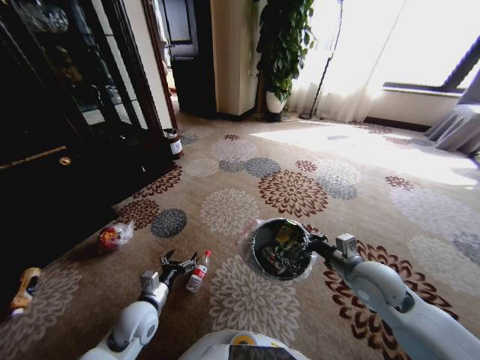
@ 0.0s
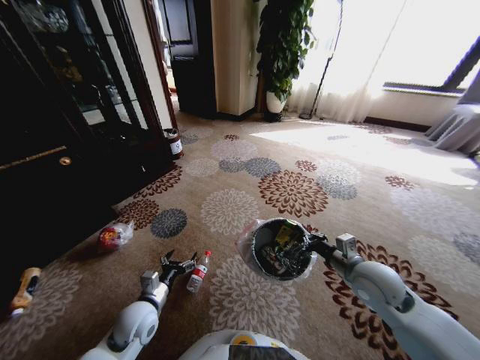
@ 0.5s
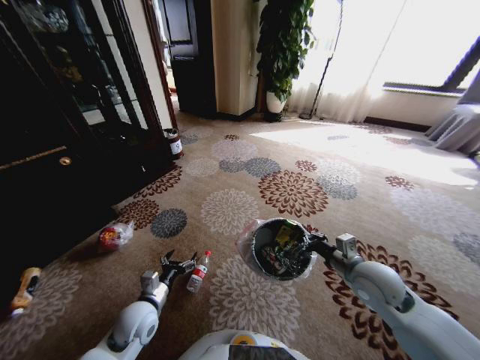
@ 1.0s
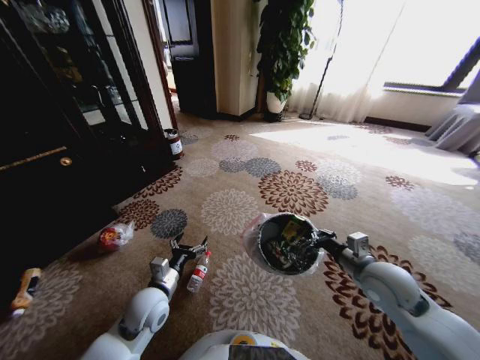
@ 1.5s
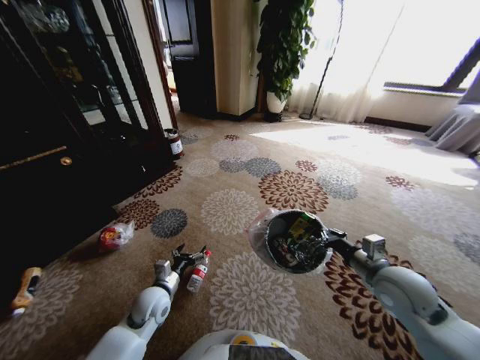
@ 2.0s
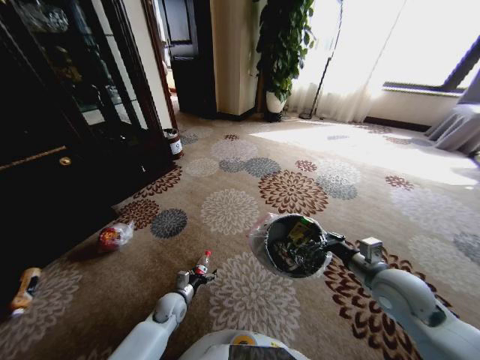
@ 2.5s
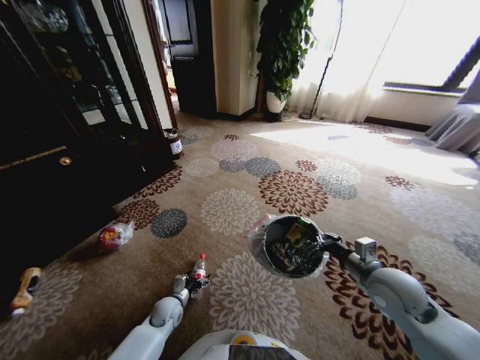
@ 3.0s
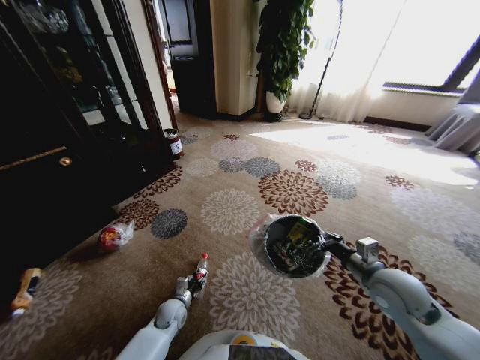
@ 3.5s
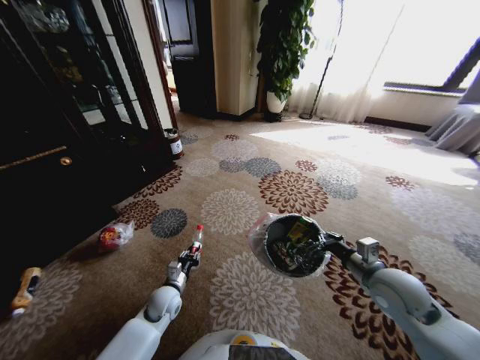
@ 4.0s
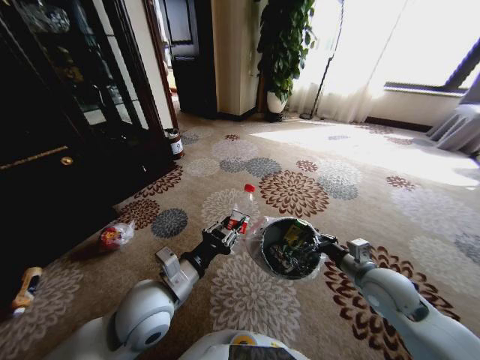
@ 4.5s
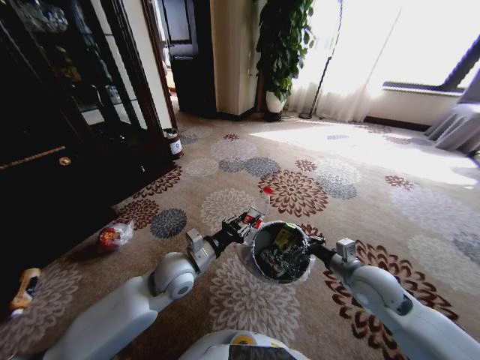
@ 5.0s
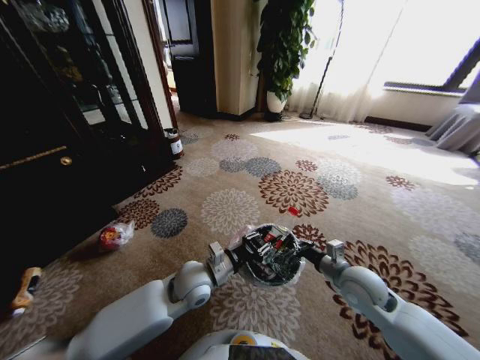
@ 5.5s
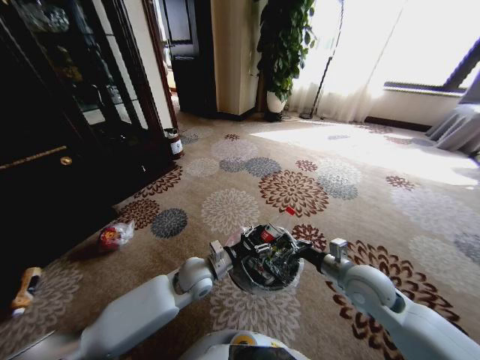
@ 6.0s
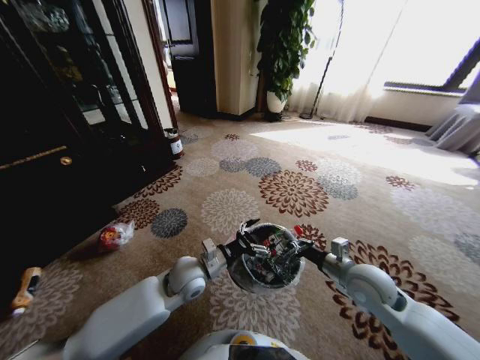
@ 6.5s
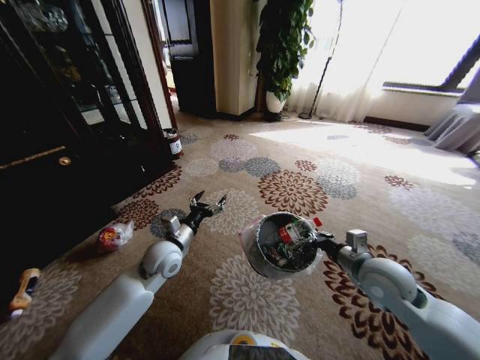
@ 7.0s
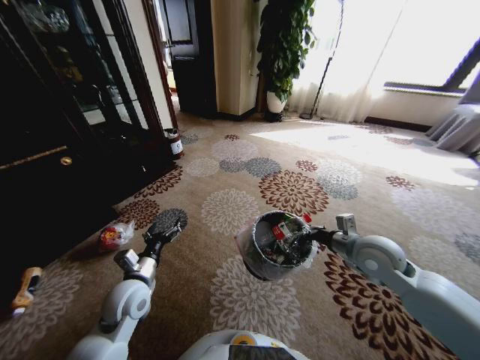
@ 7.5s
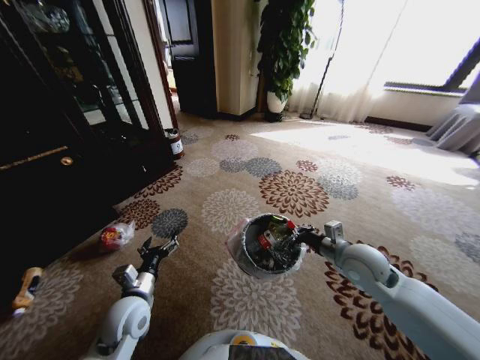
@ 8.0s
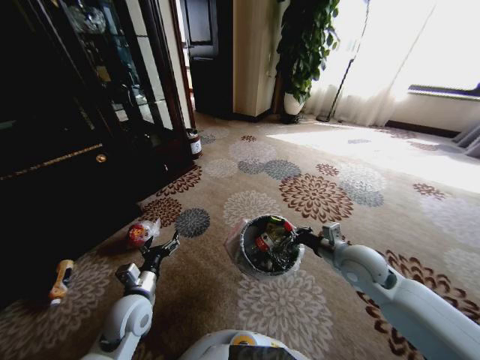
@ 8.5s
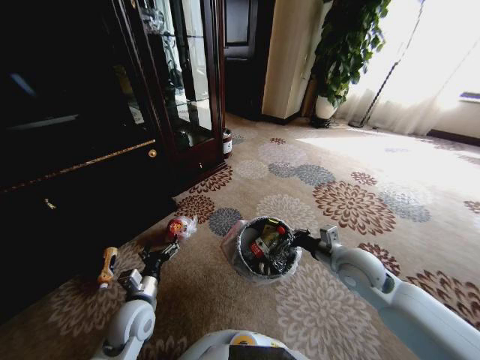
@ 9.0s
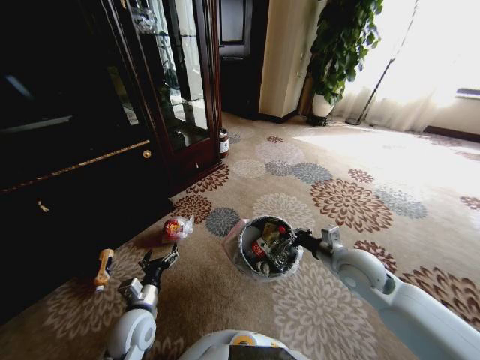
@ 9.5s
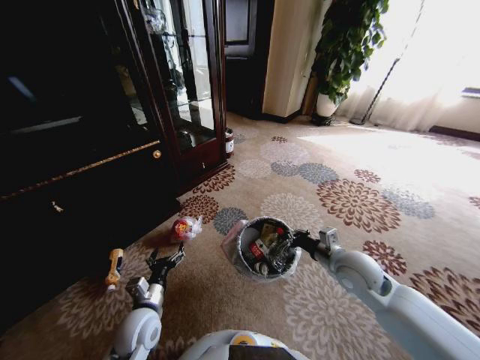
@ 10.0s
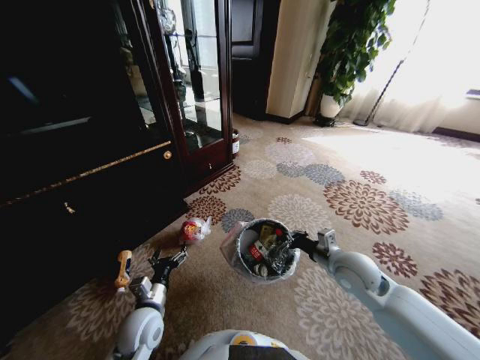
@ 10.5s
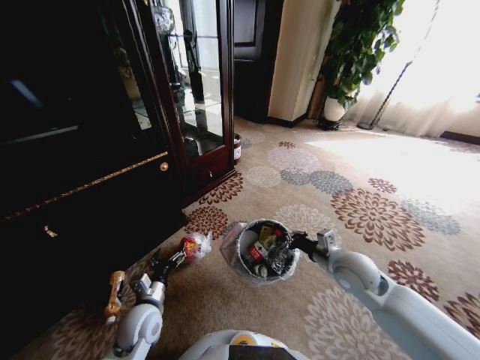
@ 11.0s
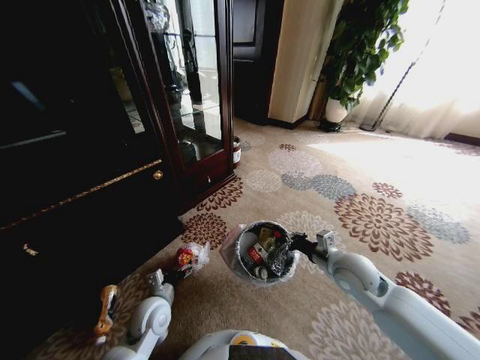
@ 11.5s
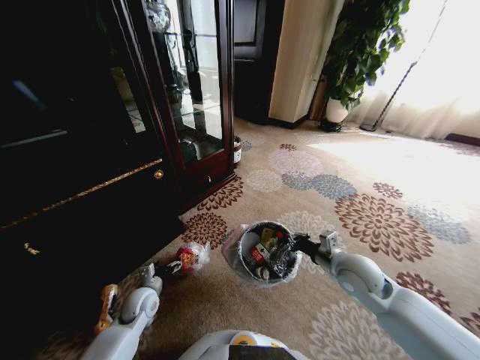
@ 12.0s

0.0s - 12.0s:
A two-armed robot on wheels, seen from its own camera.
Task of the whole recording: Pick up the trash from the ground and place it into the trash bin.
2.0s - 4.0s: The left gripper is displaced downward by roughly 5 cm, and closes up.
4.0s - 6.0s: The right gripper shifts by approximately 5 cm, while the left gripper is displaced upward and to the right by roughly 15 cm.
6.0s - 8.0s: The left gripper is displaced to the left and backward by about 20 cm, and opens.
8.0s - 10.0s: The left gripper changes place by approximately 5 cm.
10.0s - 12.0s: The left gripper travels forward, downward and to the left by about 10 cm.

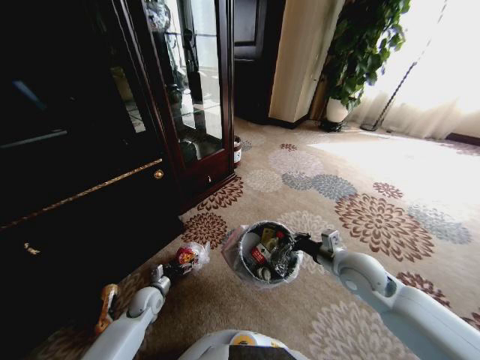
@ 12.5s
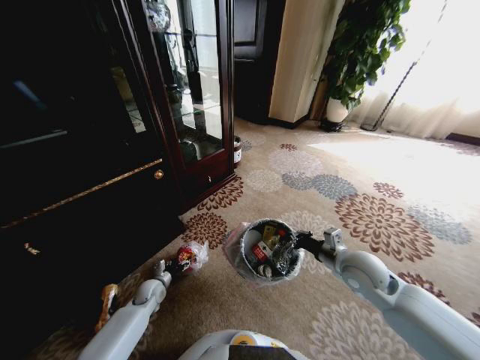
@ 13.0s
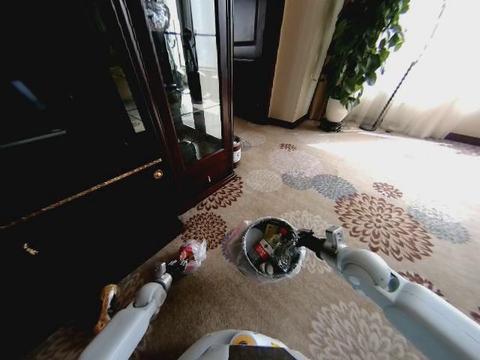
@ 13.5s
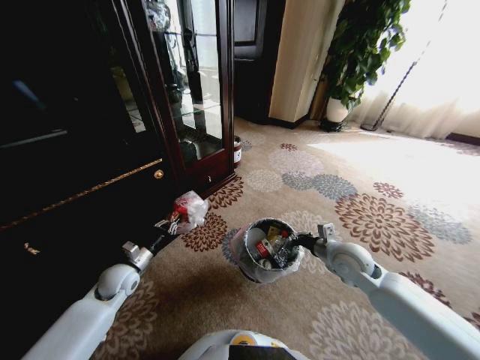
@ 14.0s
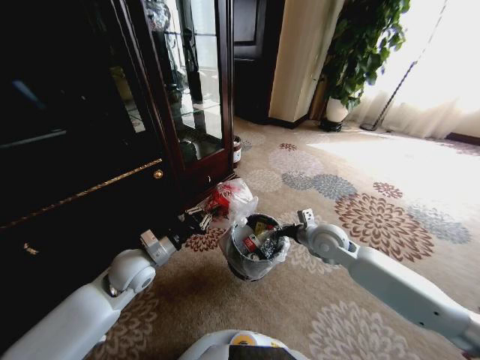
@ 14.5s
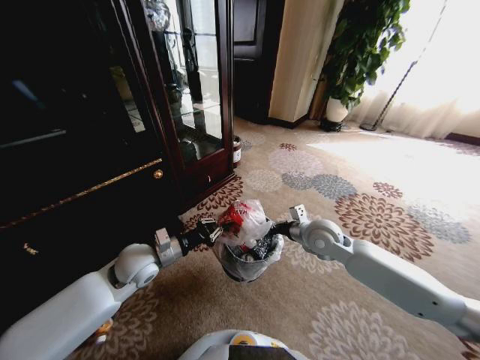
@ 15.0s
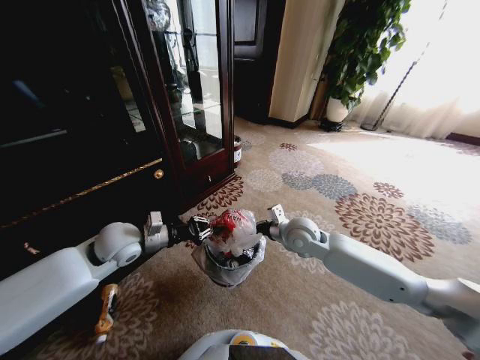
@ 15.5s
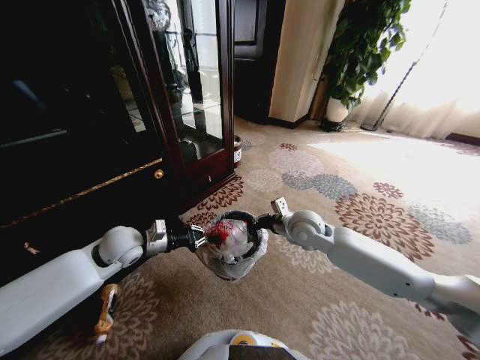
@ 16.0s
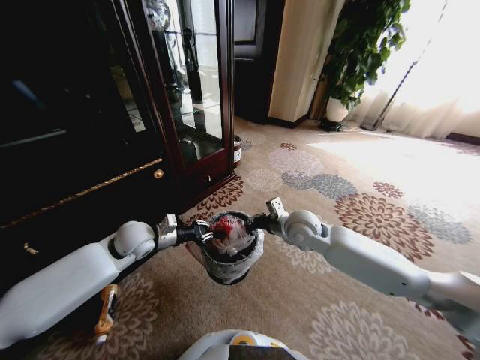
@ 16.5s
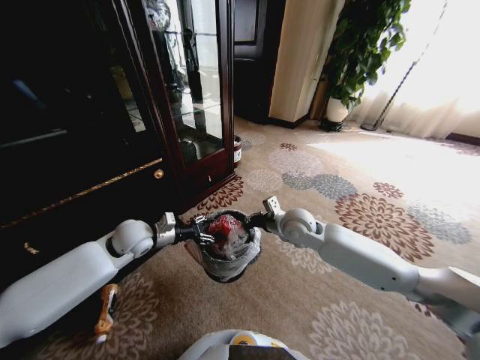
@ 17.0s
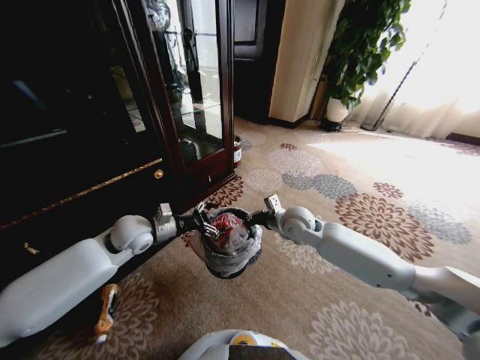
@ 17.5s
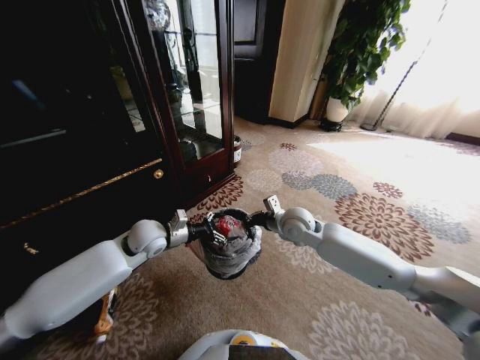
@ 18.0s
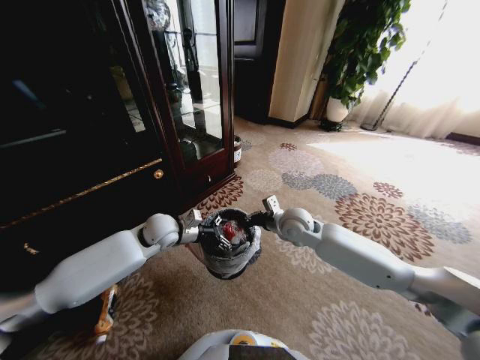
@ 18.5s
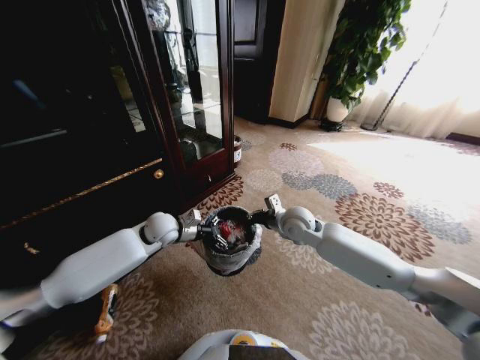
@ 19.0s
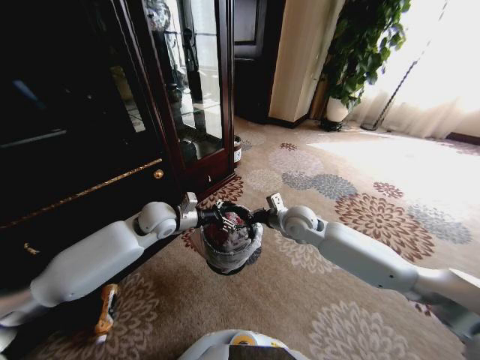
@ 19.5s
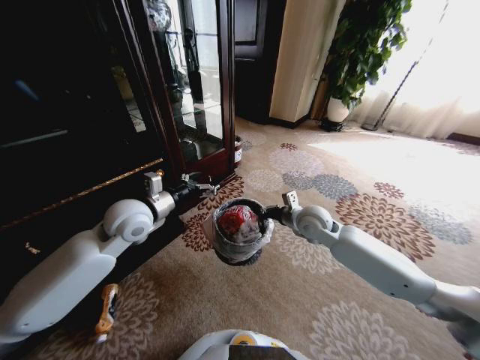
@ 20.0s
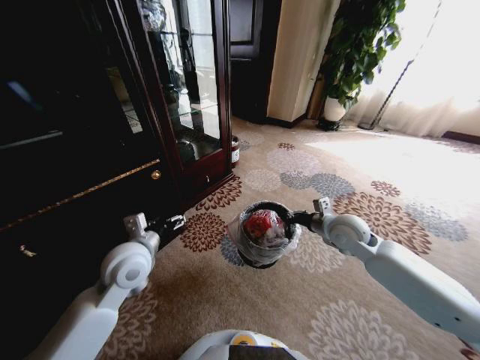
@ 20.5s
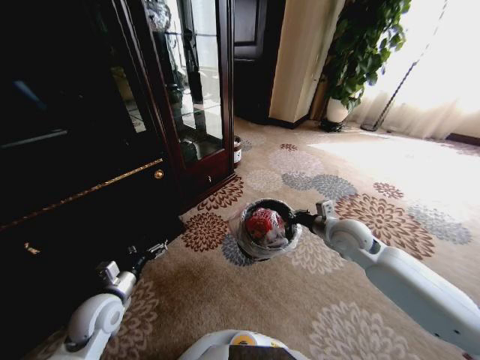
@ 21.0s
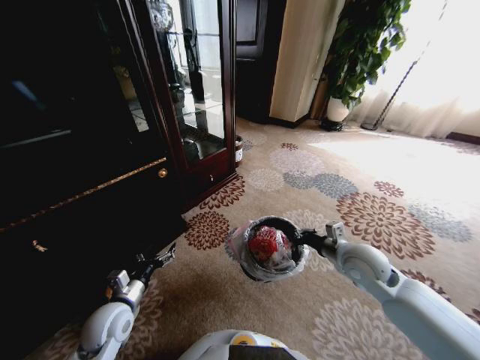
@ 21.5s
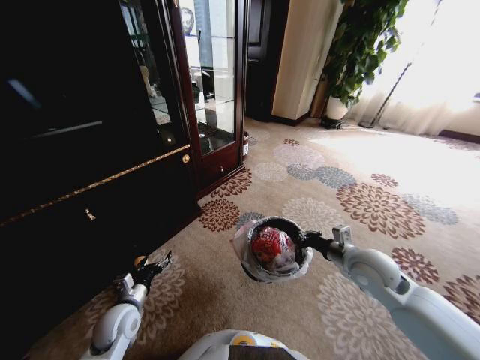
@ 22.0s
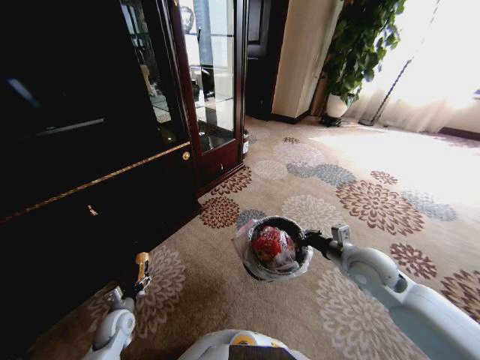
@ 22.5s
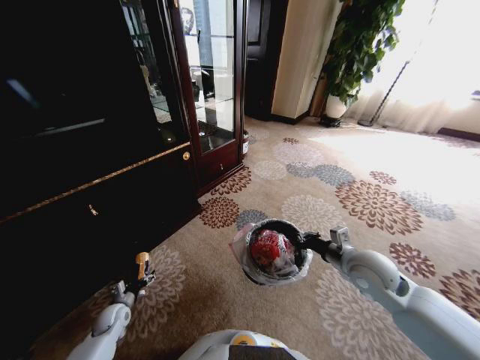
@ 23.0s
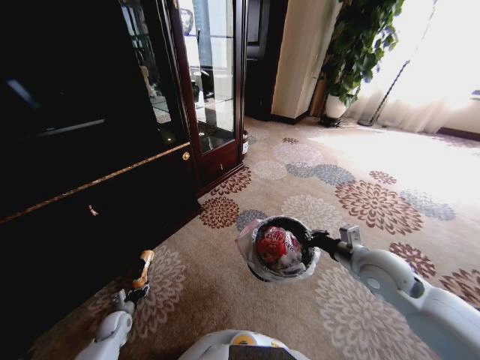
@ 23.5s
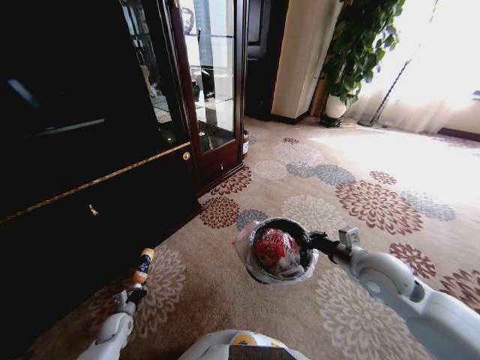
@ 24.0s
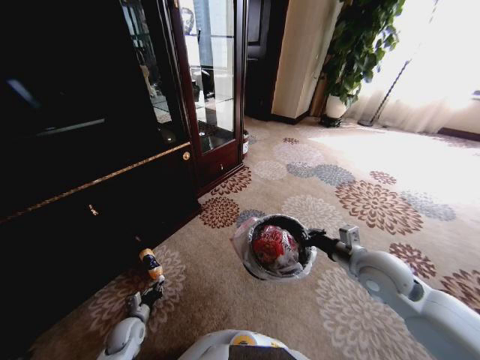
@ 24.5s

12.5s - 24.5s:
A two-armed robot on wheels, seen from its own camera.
Task of the whole recording: Pick up the trash from the ground and place it into the trash bin.
12.5s - 14.5s: The right gripper travels forward by roughly 10 cm. The left gripper is displaced upward by some 25 cm, and closes.
14.5s - 16.5s: The right gripper shifts approximately 10 cm to the left; the left gripper moves forward, about 5 cm.
16.5s - 18.5s: The left gripper goes approximately 5 cm to the right, and opens up.
18.5s - 20.5s: The right gripper heads to the right, covering approximately 15 cm; the left gripper travels backward by roughly 10 cm.
20.5s - 22.5s: The right gripper travels backward by about 10 cm. The left gripper heads downward and to the left, covering approximately 30 cm.
22.5s - 24.5s: The left gripper closes its fingers.

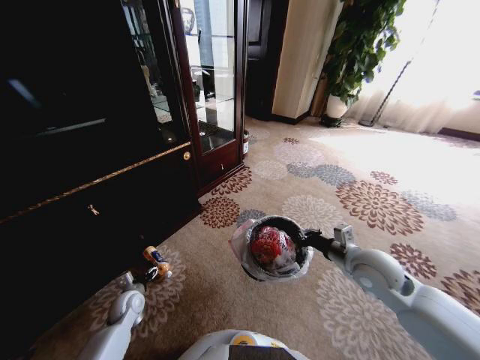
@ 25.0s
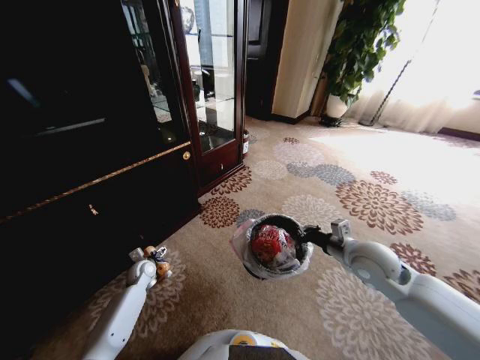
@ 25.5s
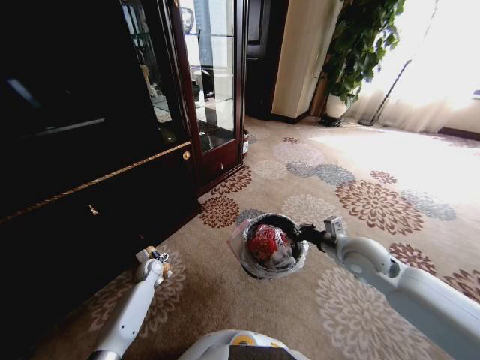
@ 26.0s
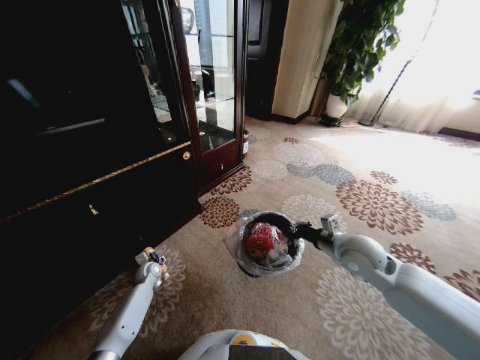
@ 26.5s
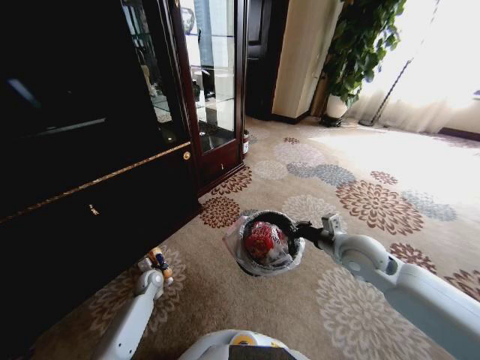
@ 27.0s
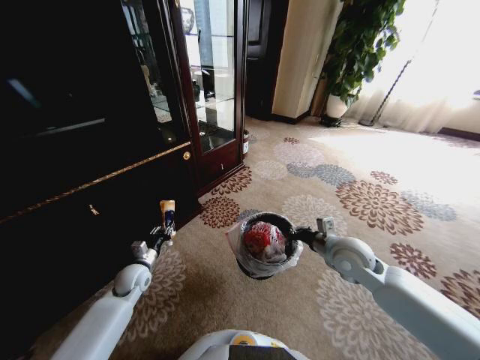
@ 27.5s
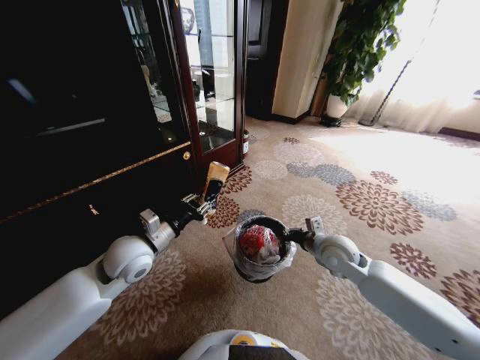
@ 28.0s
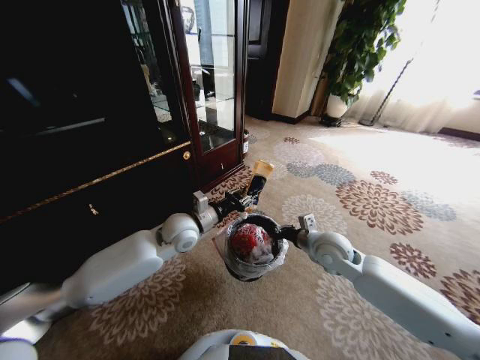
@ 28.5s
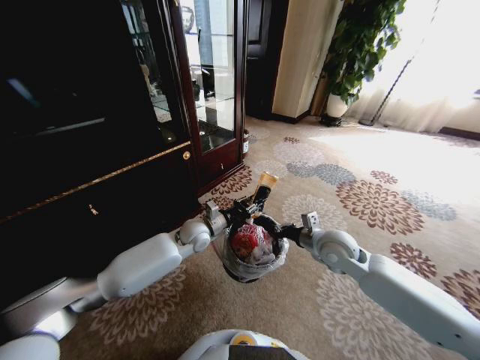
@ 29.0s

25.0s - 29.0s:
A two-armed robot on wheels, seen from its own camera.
Task of the whole recording: Pick up the trash from the ground and place it into the trash bin.
25.0s - 27.0s: The left gripper goes roughly 10 cm forward, and closes up.
27.0s - 29.0s: The right gripper ends up approximately 5 cm from where it was. The left gripper heads upward and to the right, covering roughly 30 cm.
